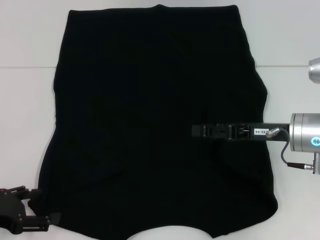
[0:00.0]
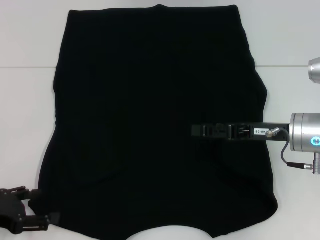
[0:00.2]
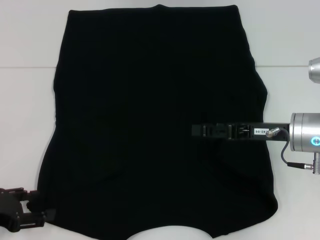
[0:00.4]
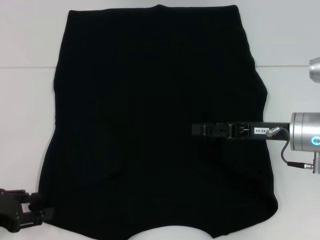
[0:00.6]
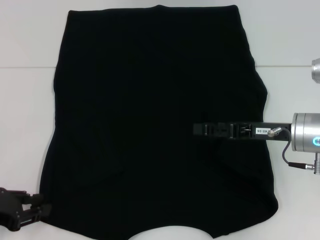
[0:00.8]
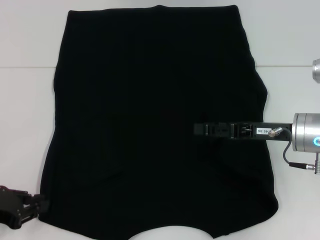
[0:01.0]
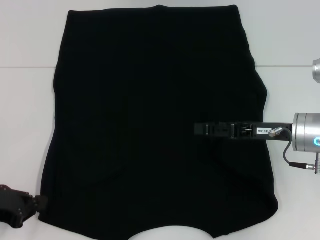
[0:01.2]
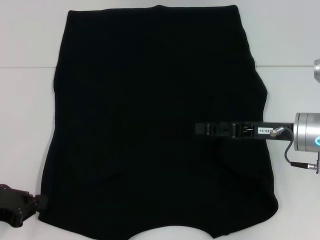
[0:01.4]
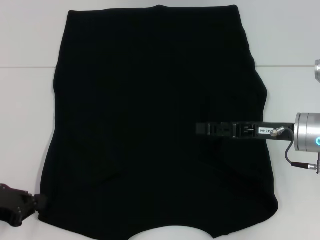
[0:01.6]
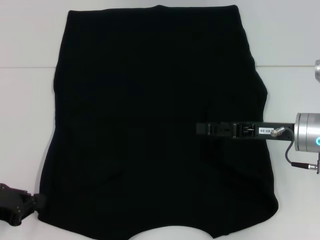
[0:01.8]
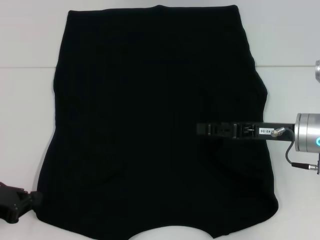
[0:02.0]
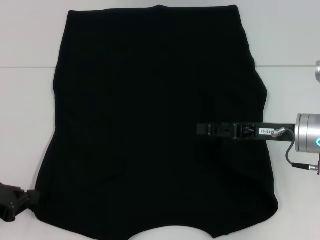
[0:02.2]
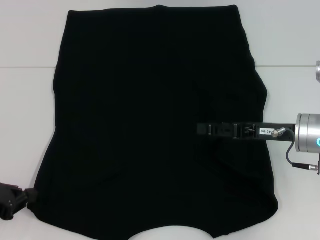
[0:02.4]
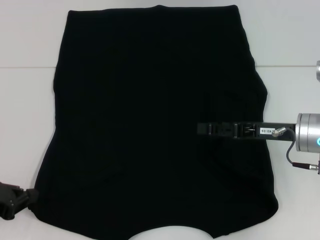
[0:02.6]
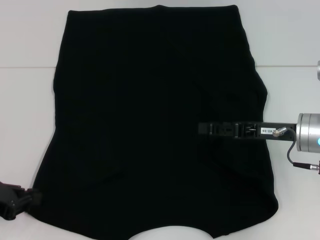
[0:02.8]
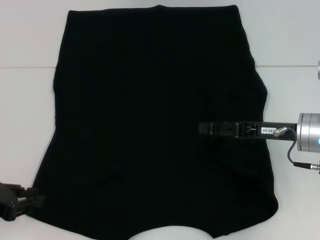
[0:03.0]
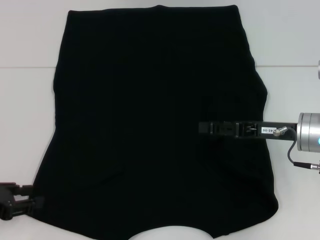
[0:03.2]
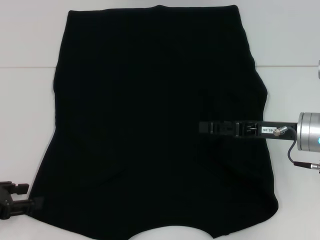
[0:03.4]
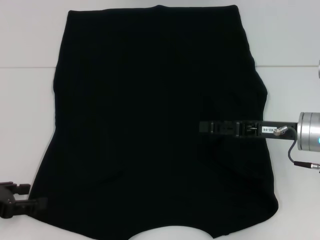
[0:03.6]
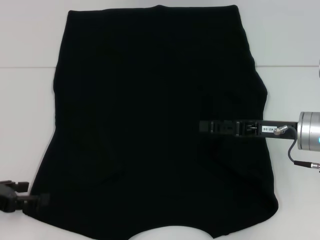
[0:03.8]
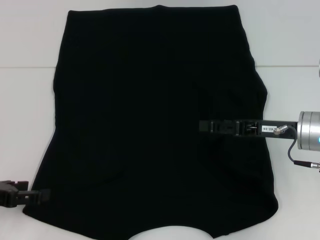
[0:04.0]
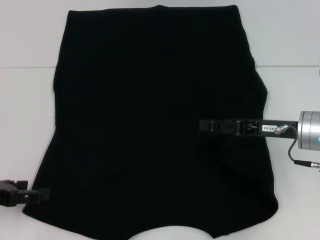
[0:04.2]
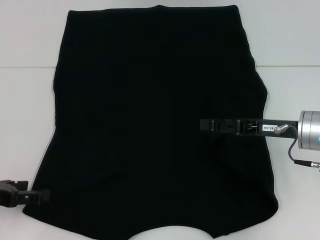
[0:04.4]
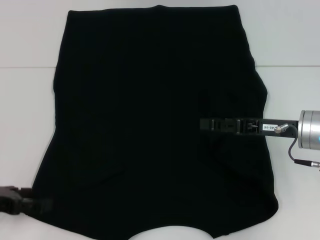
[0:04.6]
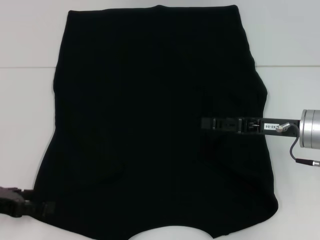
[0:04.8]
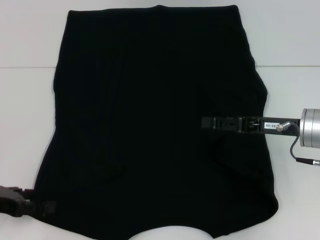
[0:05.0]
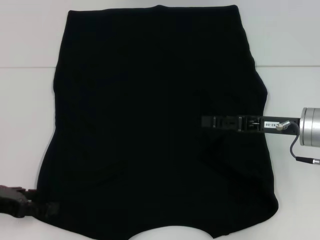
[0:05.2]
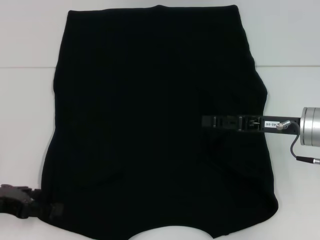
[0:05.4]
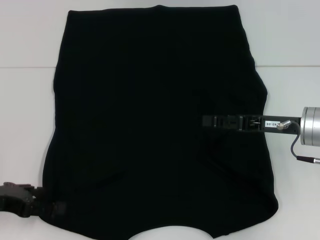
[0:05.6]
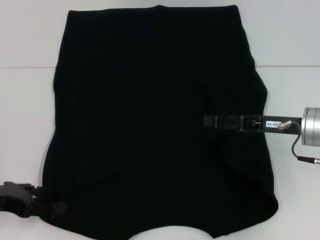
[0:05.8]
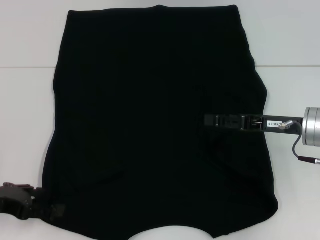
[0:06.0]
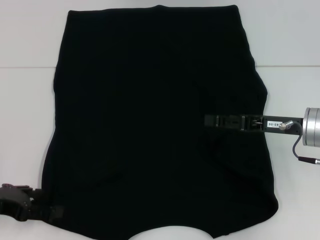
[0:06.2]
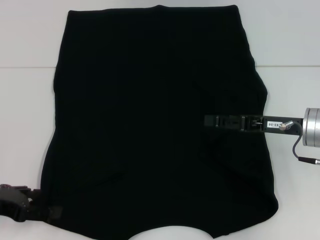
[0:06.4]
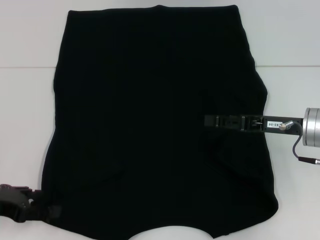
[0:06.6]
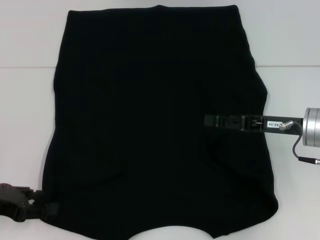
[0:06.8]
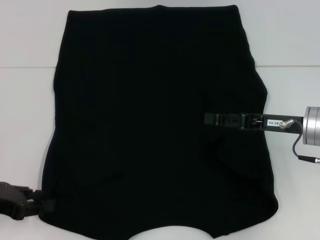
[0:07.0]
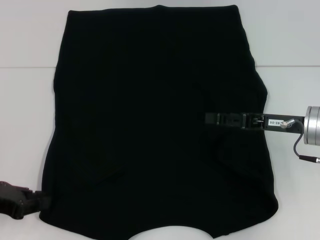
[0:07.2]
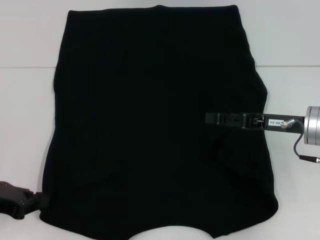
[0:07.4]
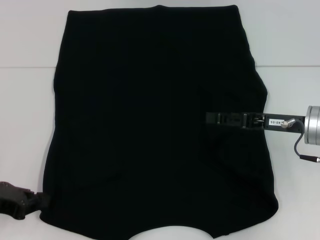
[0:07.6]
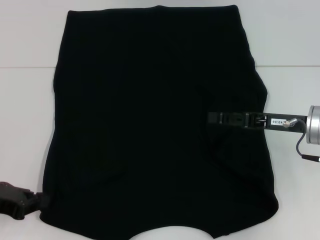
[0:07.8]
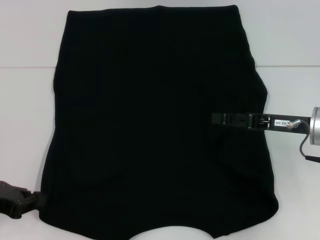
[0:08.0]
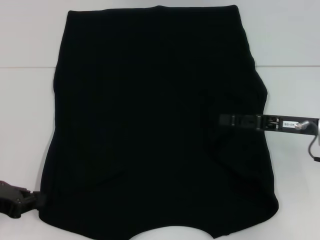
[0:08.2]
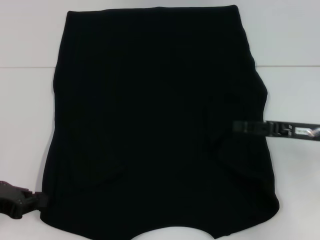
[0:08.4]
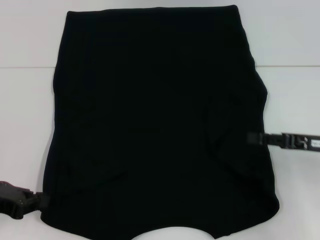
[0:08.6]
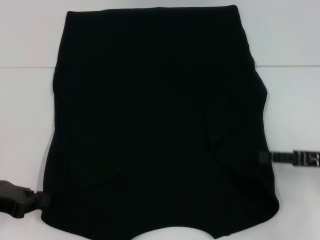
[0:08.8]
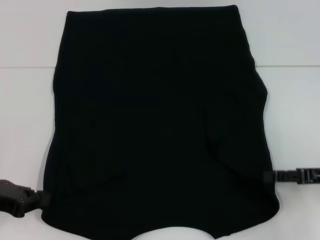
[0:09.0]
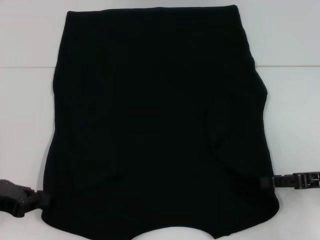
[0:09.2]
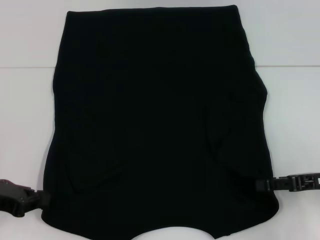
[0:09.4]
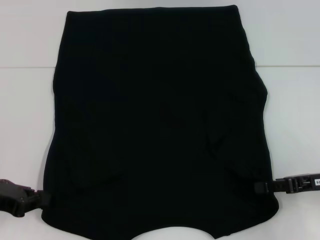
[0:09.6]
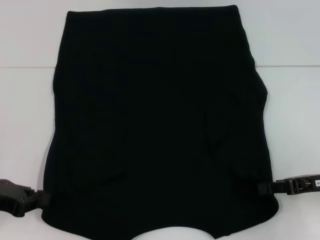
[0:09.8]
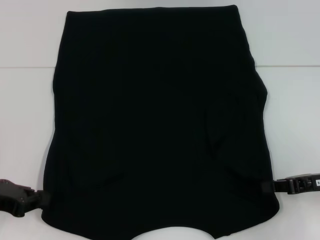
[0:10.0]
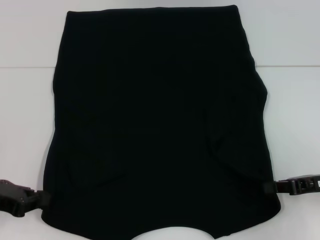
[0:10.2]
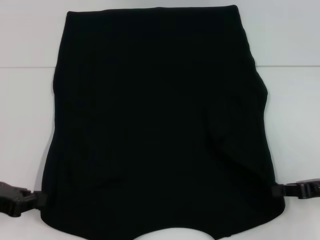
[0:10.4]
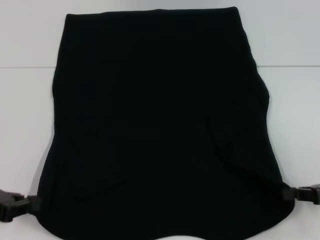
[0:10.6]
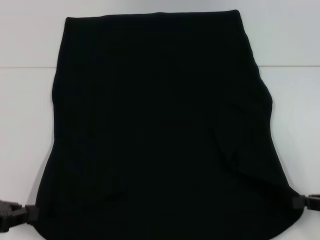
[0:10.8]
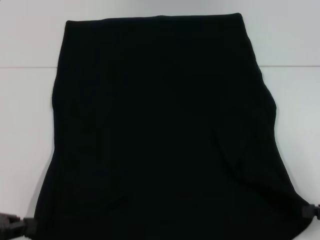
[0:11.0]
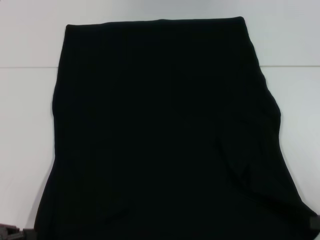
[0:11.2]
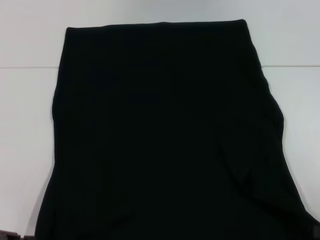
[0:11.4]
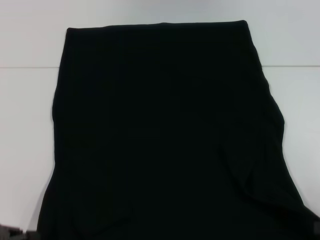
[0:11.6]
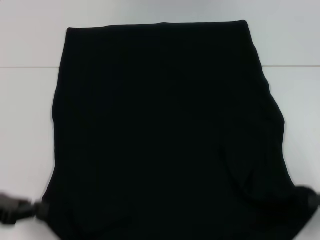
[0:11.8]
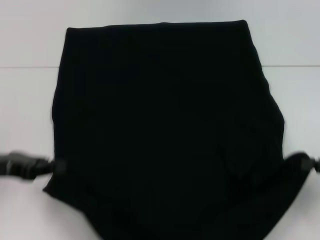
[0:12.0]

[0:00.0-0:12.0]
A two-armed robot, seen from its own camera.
Step, 0.0 to 8.4 s: Grab the bottom left corner with your left hand.
Step, 8.6 to 10.6 s: Grab the bottom right corner with your right hand.
0.0 to 1.6 s: The left gripper closes.
1.6 to 3.0 s: The two grippers keep their place.
3.0 to 4.4 s: The left gripper opens its fingers.
4.4 to 6.0 s: The grippers make only small movements.
6.0 to 7.6 s: The left gripper closes its fingers.
7.6 to 9.0 s: The right gripper heads to the right and backward, covering approximately 10 cm.
9.0 to 10.4 s: The right gripper closes its fingers.
10.4 to 12.0 s: The right gripper travels backward and back again, about 10 cm each way.

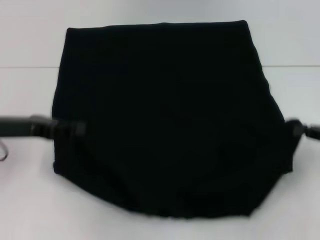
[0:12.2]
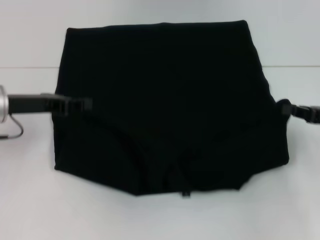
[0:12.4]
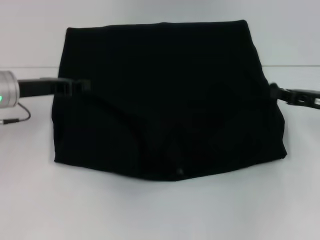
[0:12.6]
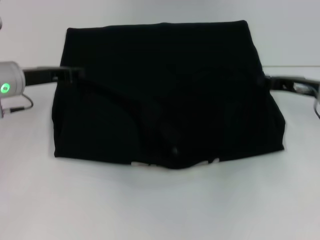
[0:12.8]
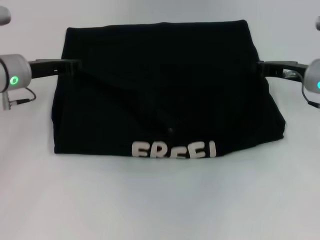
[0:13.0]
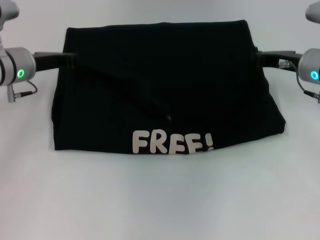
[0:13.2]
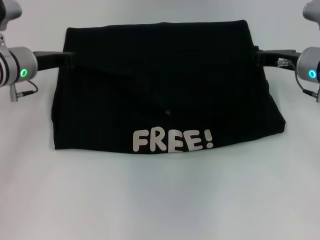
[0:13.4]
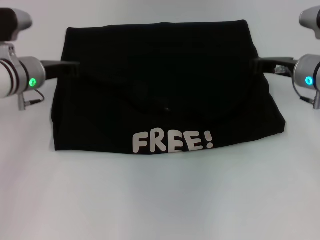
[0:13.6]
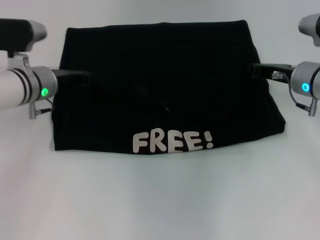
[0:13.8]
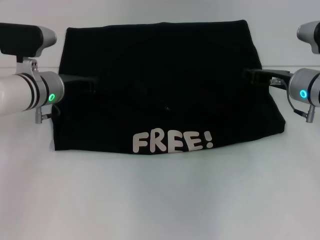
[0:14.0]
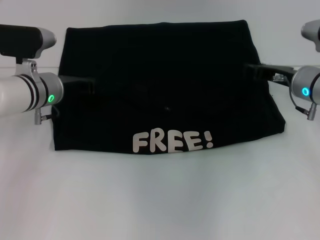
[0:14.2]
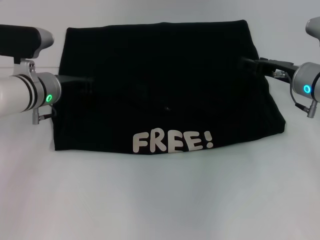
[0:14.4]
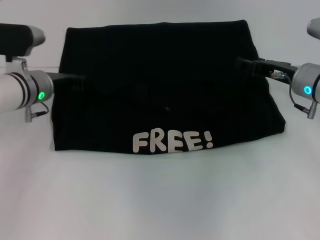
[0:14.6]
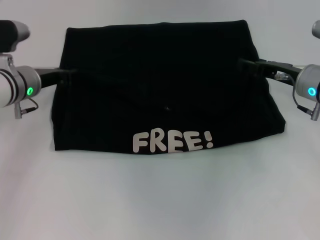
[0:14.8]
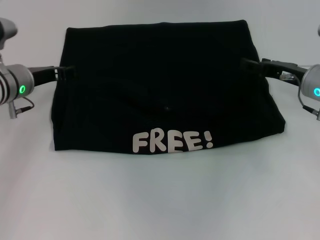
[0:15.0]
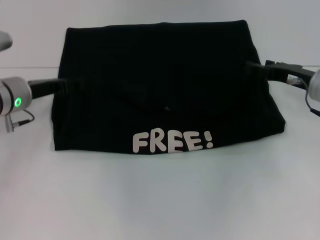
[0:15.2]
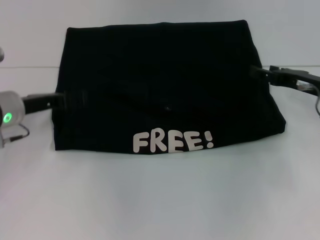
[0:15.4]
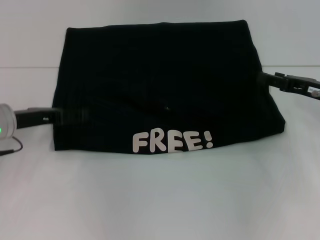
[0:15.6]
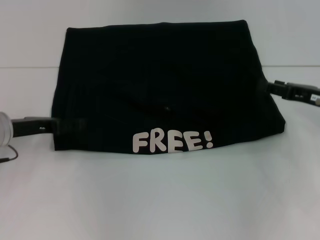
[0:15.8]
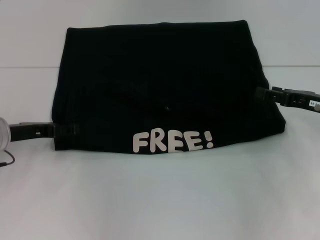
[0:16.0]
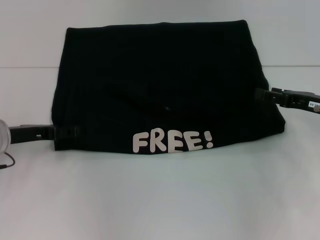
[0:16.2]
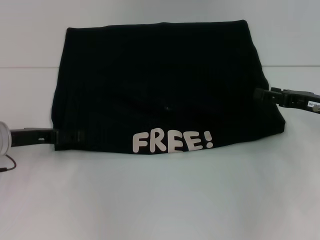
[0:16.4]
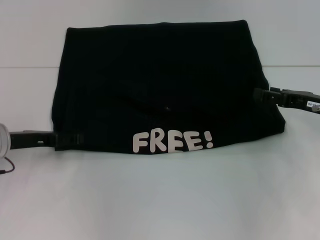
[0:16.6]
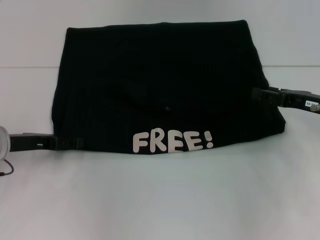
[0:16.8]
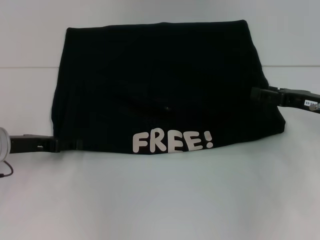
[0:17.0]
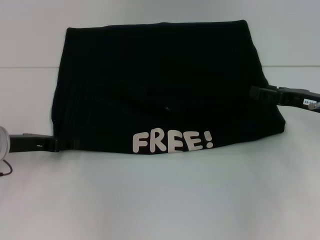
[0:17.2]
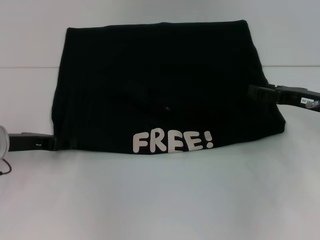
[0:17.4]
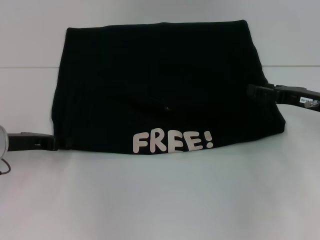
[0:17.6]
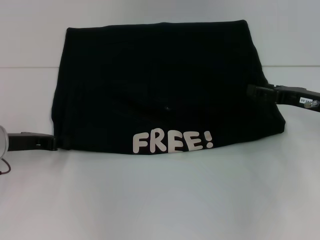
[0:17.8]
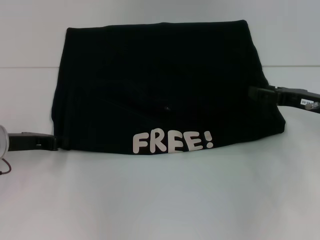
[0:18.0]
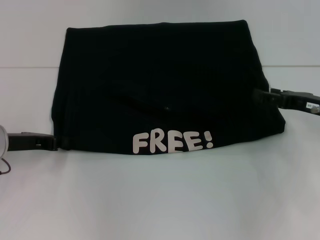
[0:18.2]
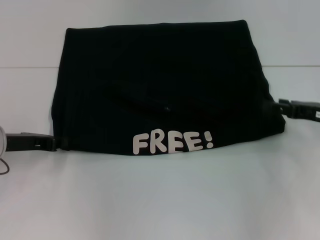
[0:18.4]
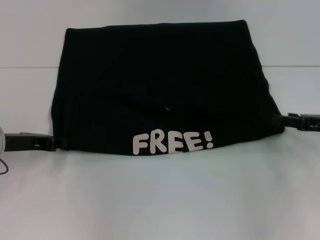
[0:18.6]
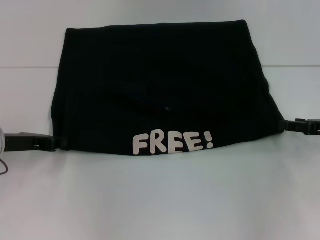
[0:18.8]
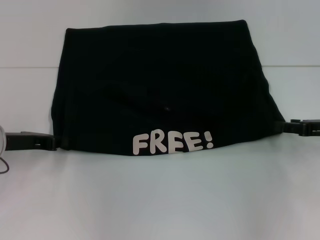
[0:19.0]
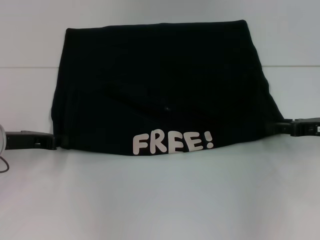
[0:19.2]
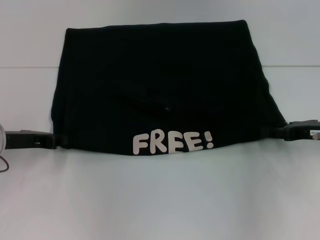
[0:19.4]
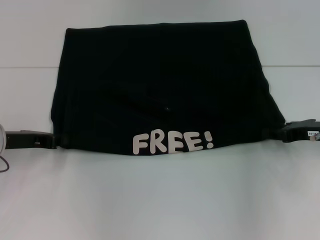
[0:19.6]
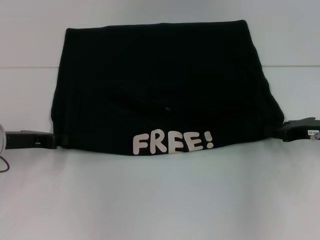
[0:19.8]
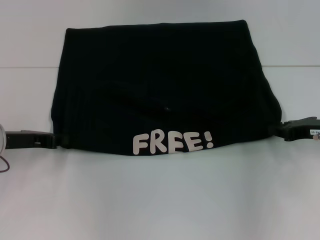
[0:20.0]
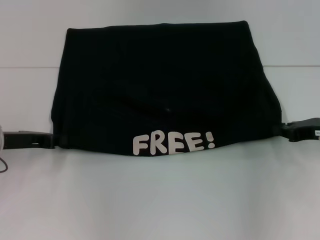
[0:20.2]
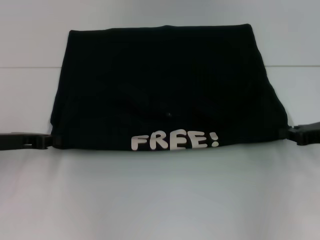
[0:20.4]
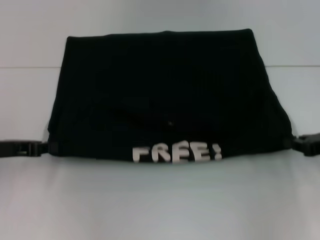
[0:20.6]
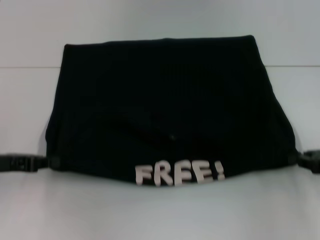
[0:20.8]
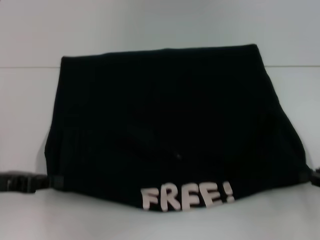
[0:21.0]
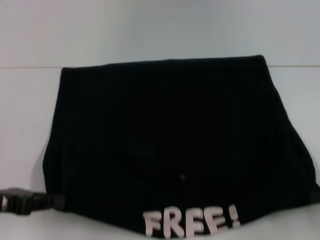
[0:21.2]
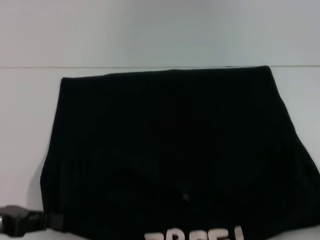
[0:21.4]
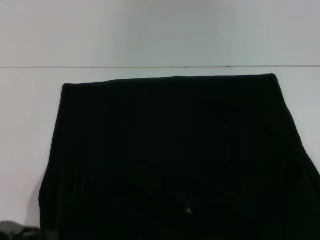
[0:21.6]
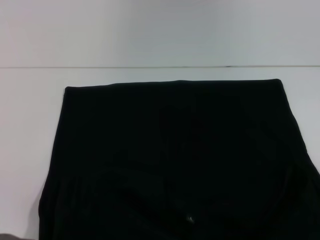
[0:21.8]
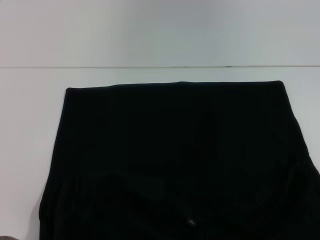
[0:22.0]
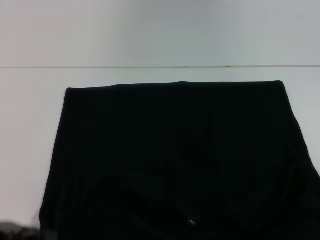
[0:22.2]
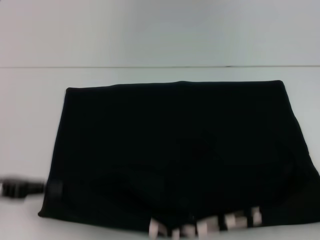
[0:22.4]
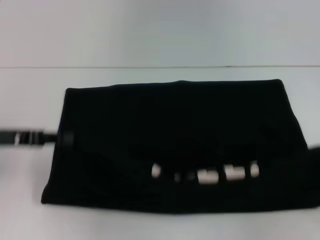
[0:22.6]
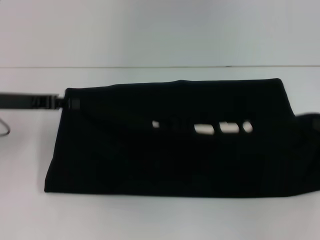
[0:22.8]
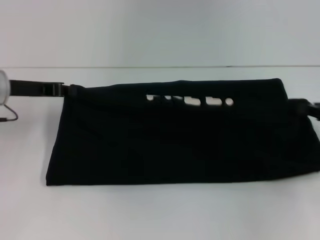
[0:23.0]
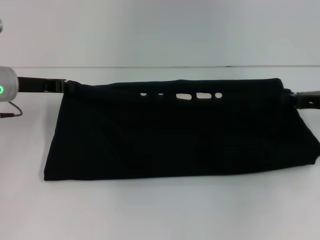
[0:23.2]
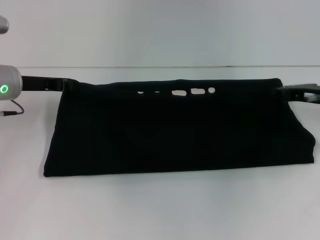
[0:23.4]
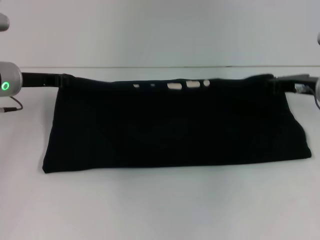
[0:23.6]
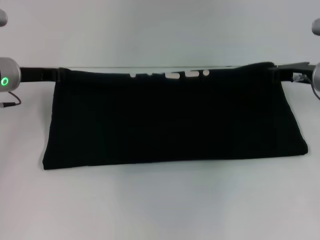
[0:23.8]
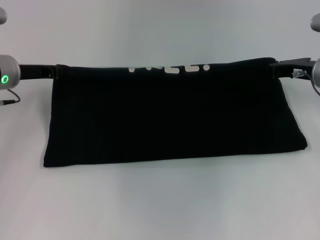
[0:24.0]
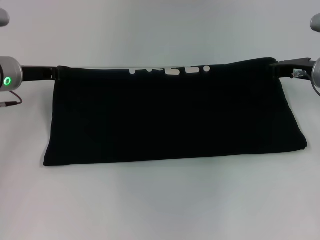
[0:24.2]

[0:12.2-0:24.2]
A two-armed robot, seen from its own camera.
Step, 12.2 to 14.8 s: Fold the clothes with your left hand.
Step, 12.2 to 14.8 s: Fold the clothes with your right hand.
Step, 15.0 to 21.8 s: Pull the clothes with your left hand.
Step, 15.0 to 21.8 s: Pull the clothes with your right hand.
12.2 to 13.8 s: The right gripper is displaced forward and to the left by approximately 20 cm. Meanwhile the left gripper heads forward and to the right, covering some 15 cm.
13.8 to 15.2 s: The right gripper opens up, while the left gripper opens.
15.2 to 16.6 s: The left gripper is displaced backward by about 5 cm, while the right gripper changes place by about 5 cm.
16.6 to 18.2 s: The left gripper closes.
19.8 to 21.2 s: The right gripper shifts roughly 15 cm backward and to the right, and closes. Meanwhile the left gripper goes roughly 10 cm backward.
21.2 to 22.6 s: The left gripper travels forward by approximately 5 cm; the right gripper travels backward and back again, some 10 cm each way.
22.6 to 24.2 s: The left gripper moves forward, roughly 10 cm. The right gripper moves forward and to the left, about 20 cm.
